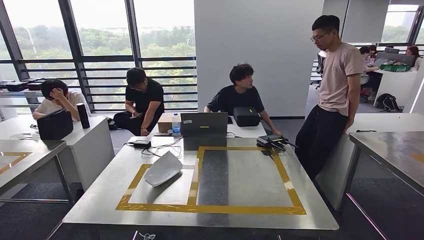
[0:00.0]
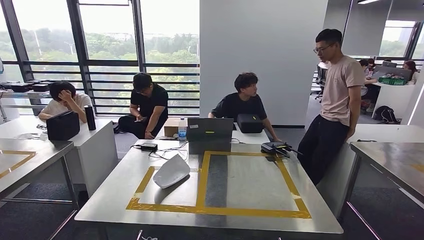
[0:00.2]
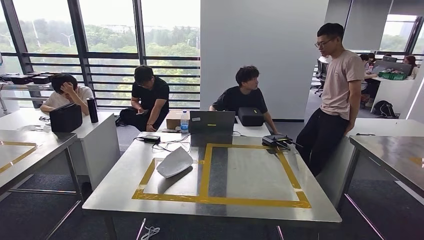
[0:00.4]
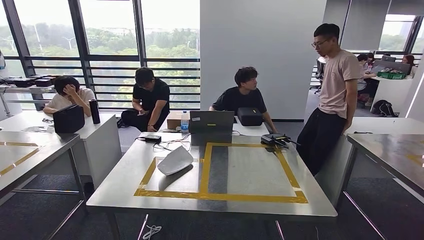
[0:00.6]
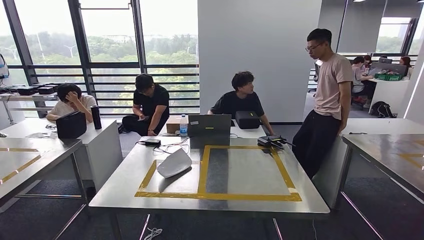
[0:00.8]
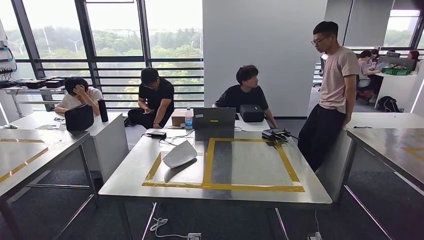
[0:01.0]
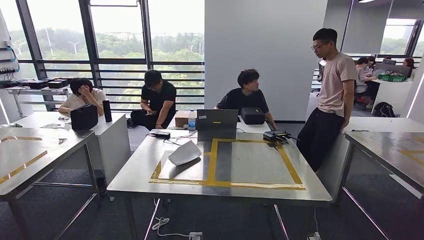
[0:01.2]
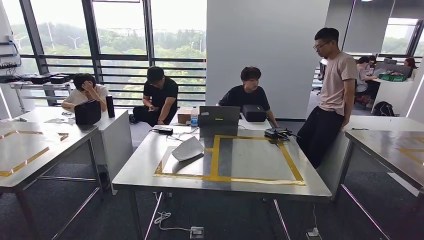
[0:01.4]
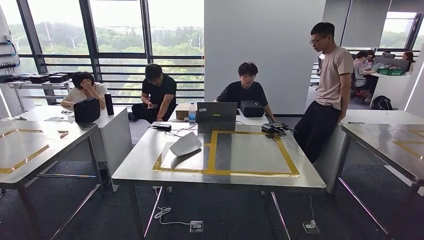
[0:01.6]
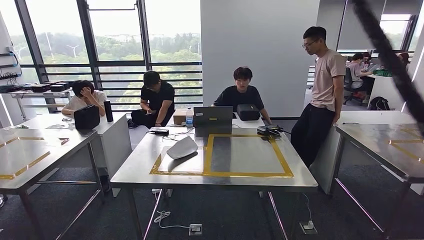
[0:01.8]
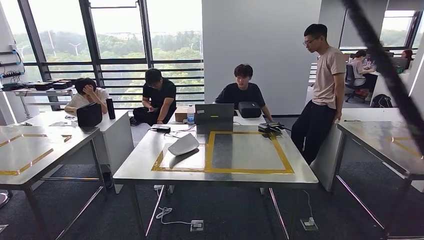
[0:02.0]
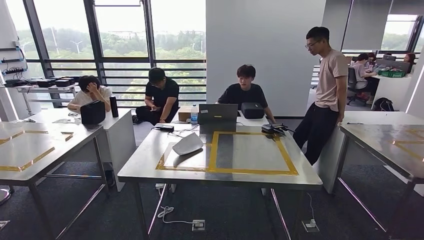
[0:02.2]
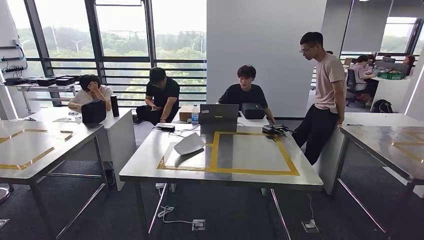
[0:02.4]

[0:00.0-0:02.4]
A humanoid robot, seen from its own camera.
Step, 0:00.0 to 0:02.2: Return to the initial position at the workbench.

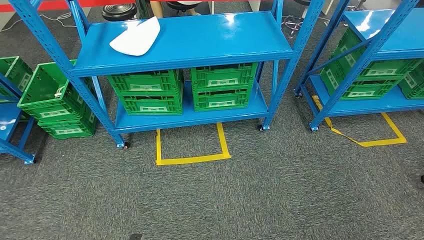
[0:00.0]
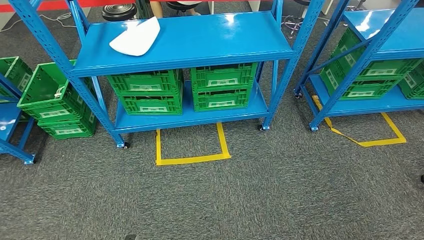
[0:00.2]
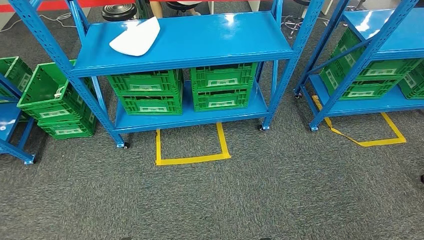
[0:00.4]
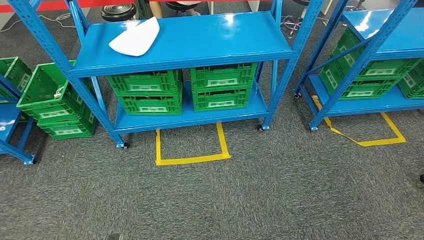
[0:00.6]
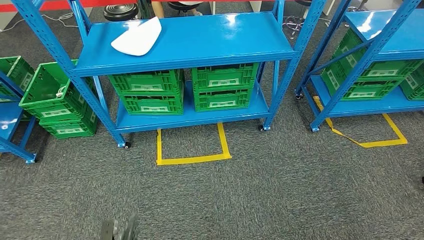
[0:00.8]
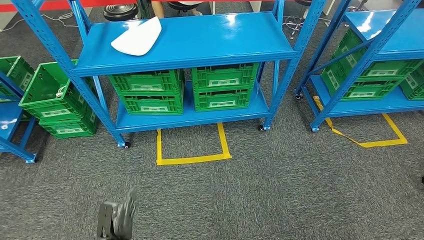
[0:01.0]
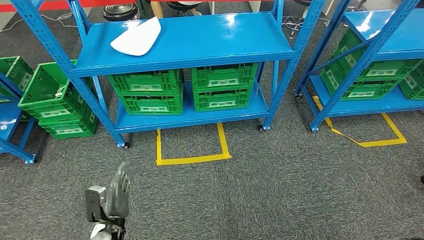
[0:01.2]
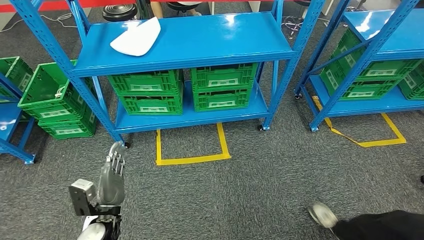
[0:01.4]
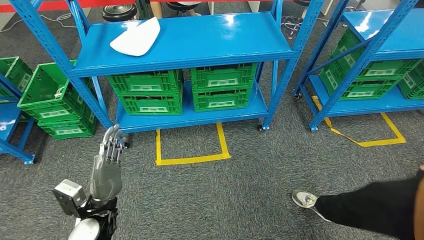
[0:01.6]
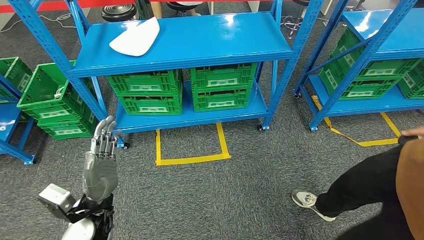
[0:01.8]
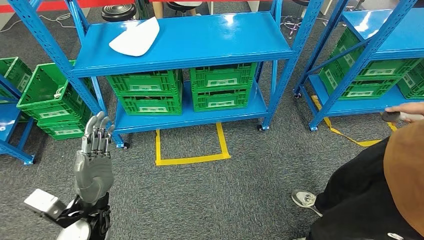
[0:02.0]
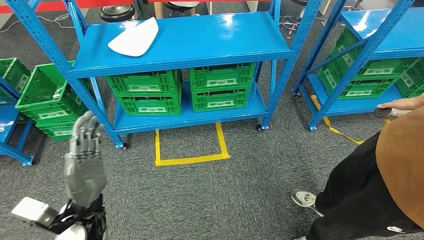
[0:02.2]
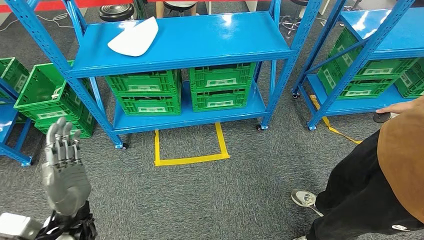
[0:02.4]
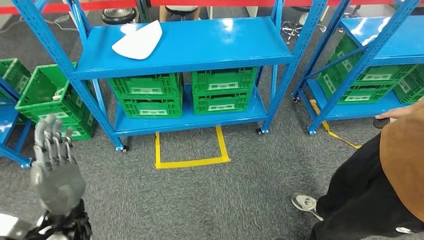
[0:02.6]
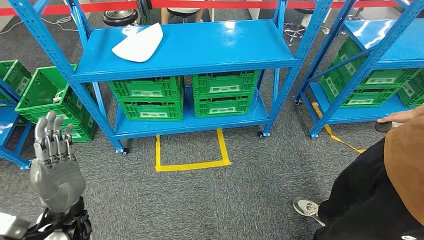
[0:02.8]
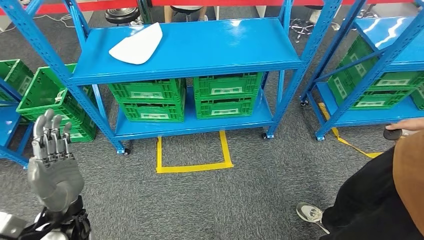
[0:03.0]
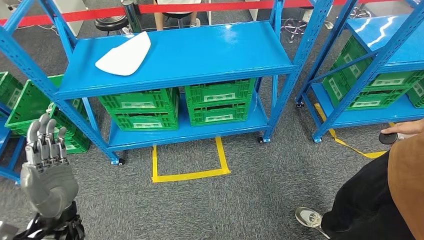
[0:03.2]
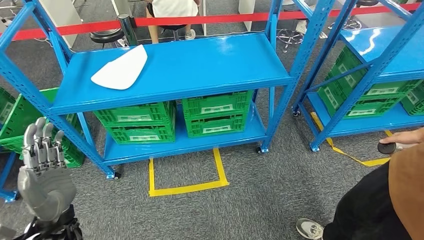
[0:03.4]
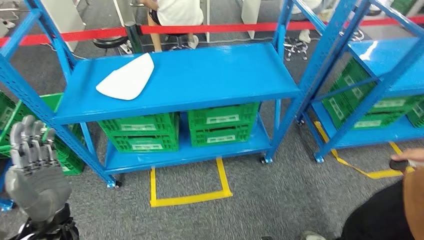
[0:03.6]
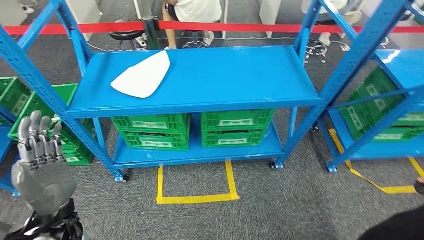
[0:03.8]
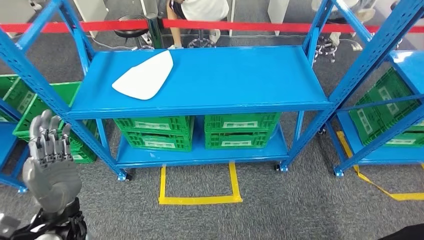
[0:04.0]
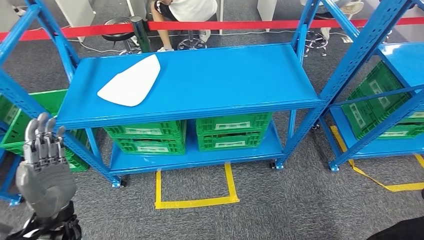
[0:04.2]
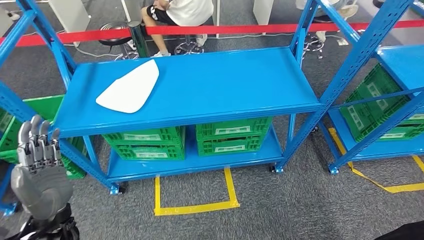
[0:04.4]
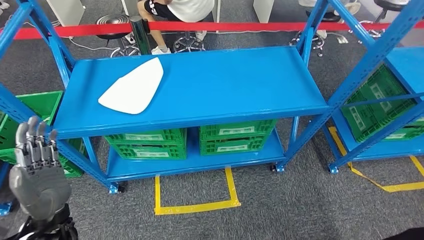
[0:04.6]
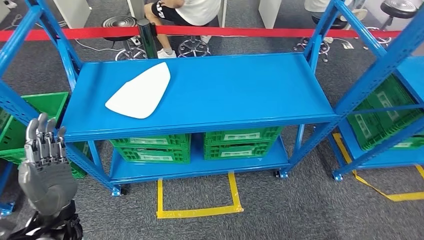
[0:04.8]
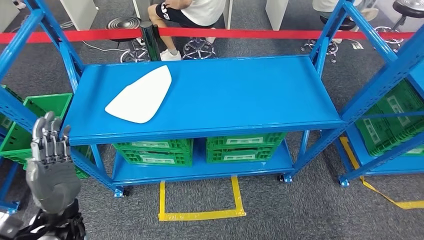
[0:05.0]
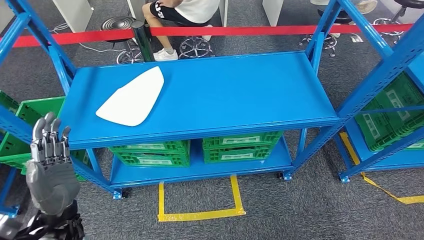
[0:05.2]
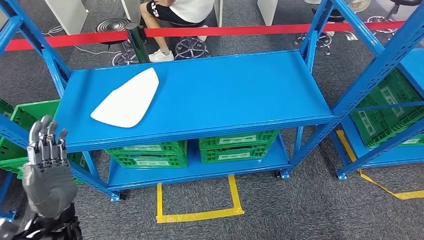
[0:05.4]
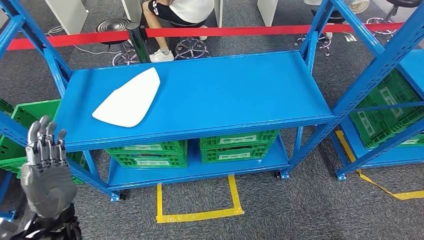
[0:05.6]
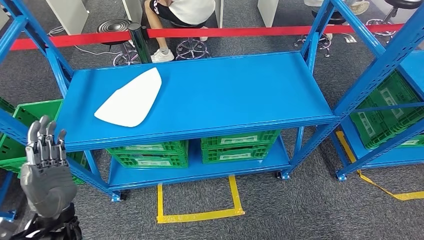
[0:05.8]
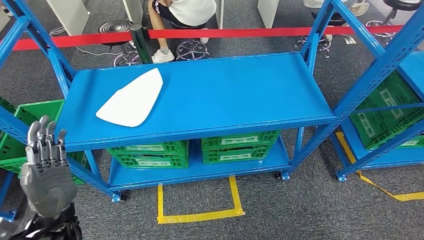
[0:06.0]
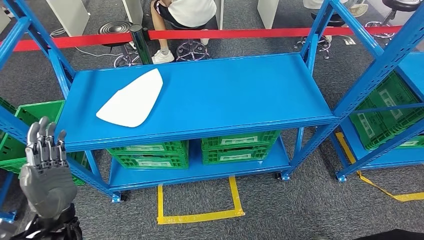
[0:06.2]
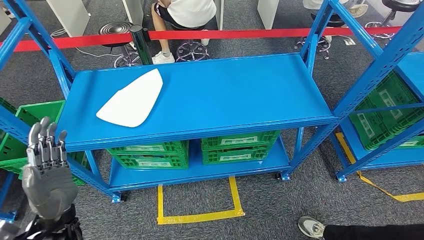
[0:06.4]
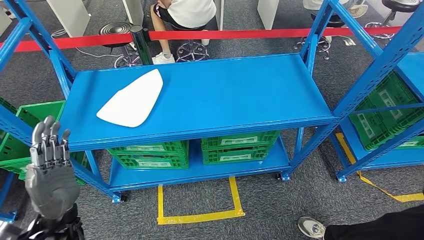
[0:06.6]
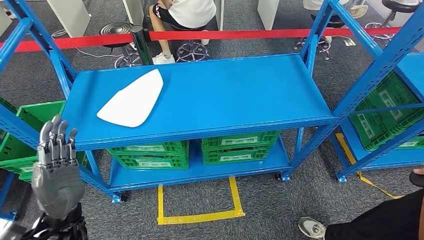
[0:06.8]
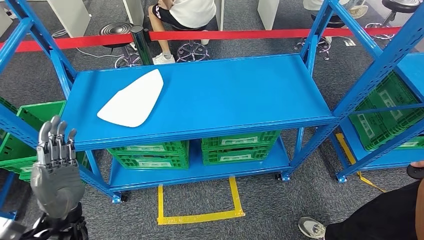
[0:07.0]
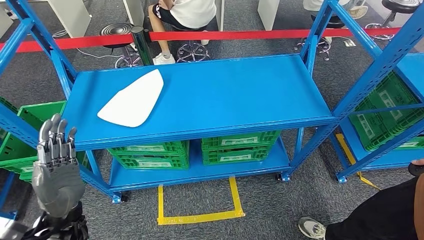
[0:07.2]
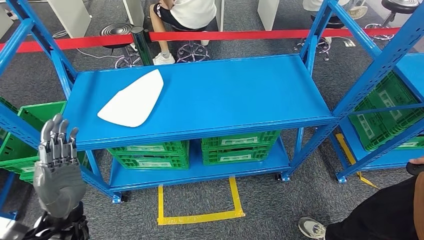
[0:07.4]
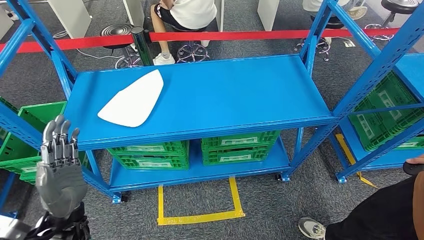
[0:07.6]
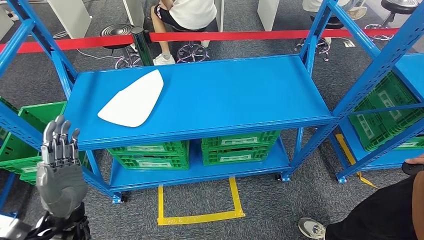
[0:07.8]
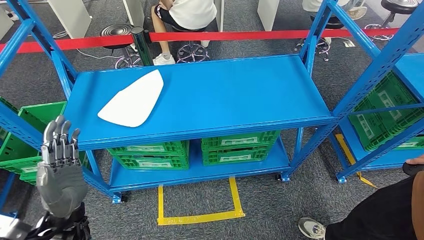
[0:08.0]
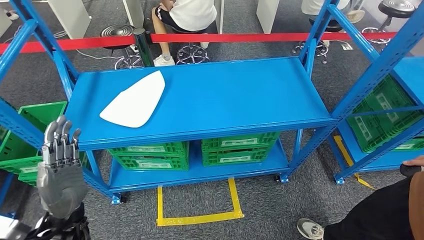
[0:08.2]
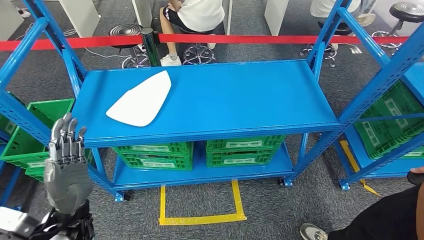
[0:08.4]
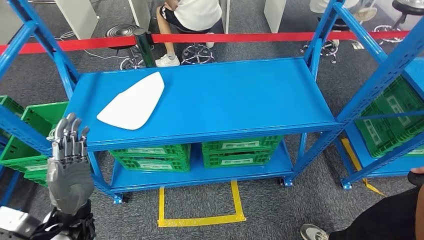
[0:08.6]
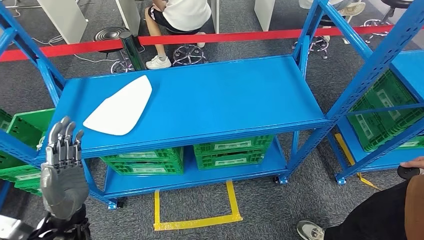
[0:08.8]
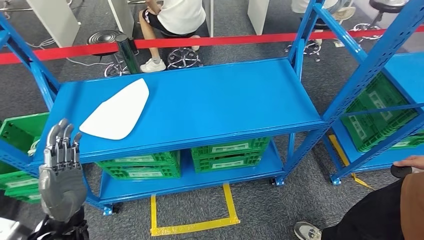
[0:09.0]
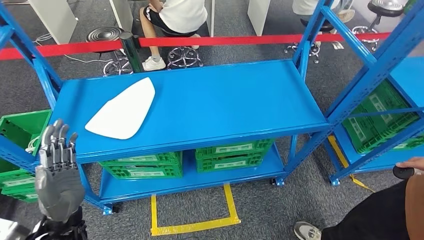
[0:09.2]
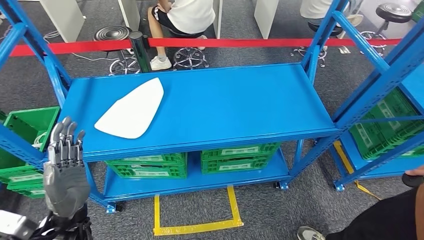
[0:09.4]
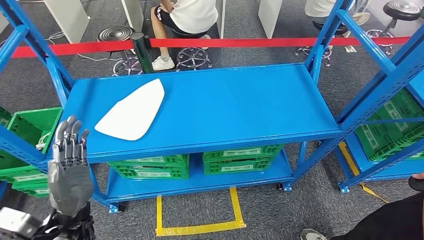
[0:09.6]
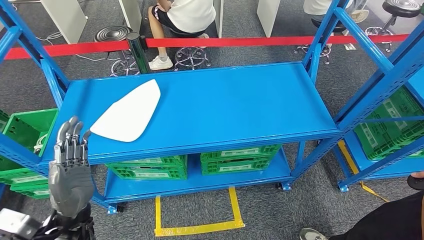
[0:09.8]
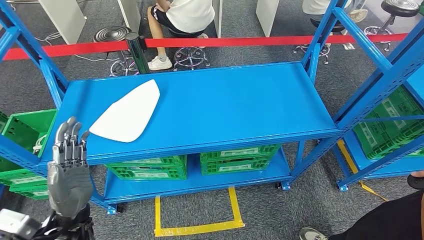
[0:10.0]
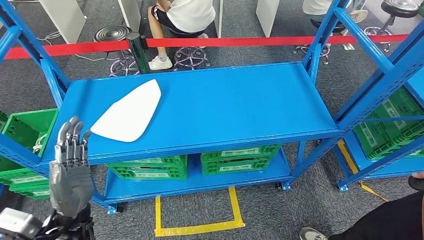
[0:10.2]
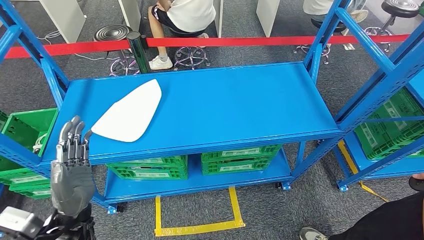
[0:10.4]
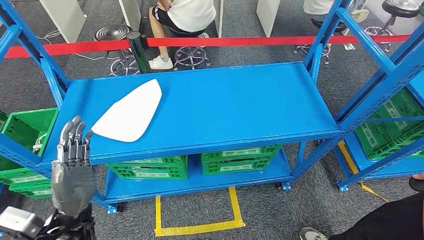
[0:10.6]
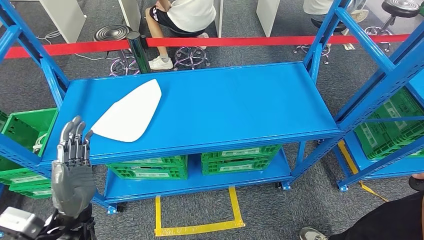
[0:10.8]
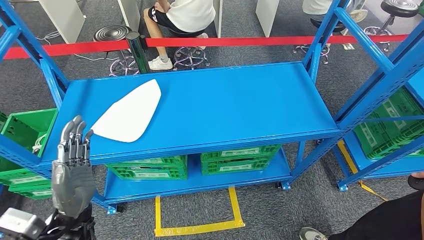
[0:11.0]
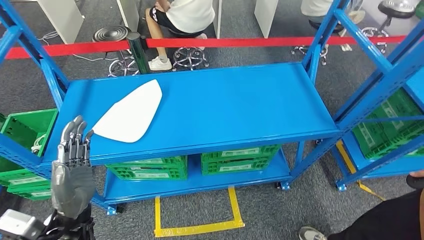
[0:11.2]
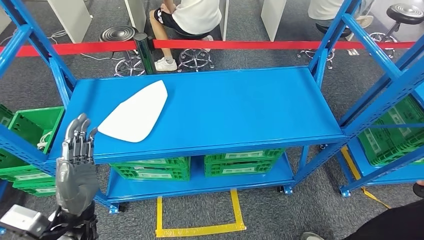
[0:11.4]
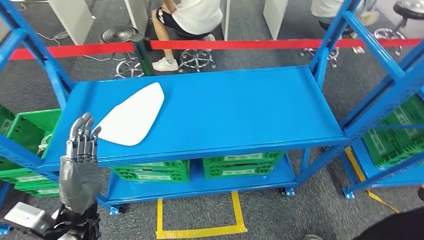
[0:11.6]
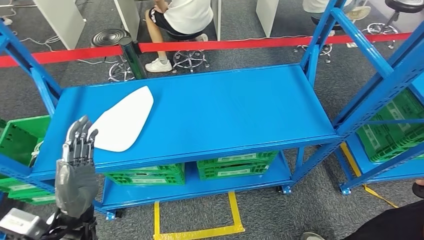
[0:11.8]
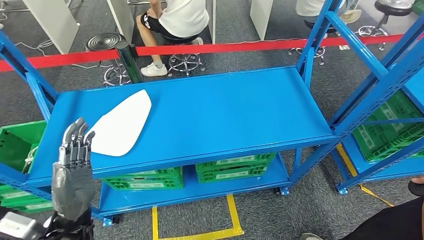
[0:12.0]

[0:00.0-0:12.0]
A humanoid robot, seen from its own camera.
0:06.0 to 0:07.6: The hands move only a little.

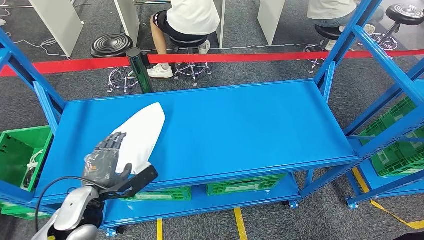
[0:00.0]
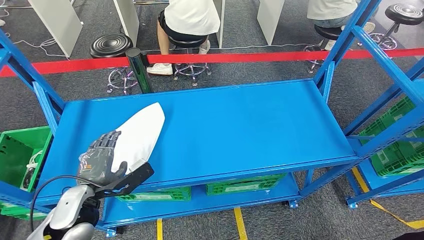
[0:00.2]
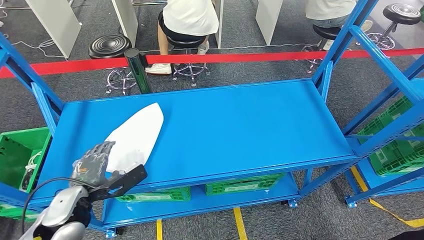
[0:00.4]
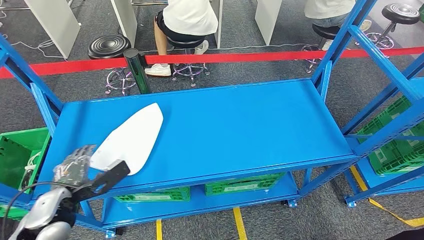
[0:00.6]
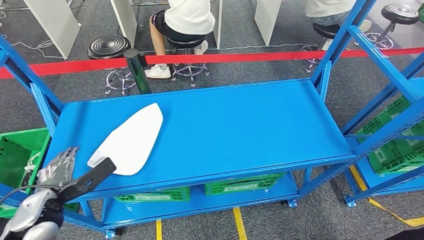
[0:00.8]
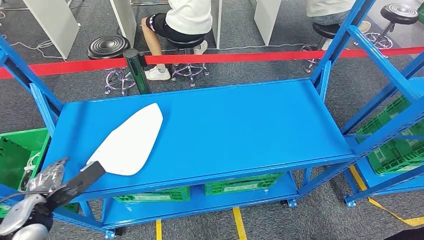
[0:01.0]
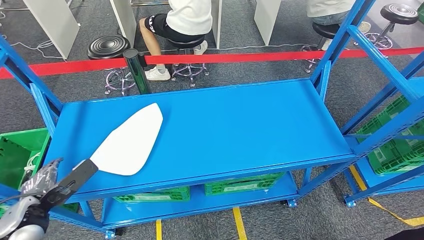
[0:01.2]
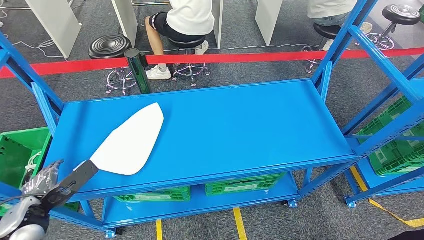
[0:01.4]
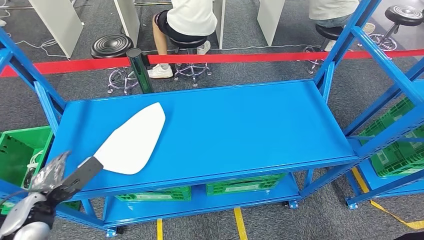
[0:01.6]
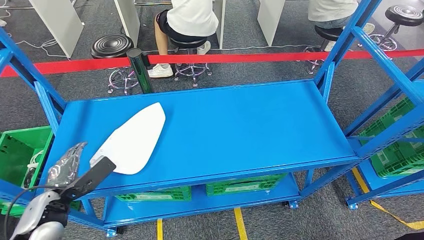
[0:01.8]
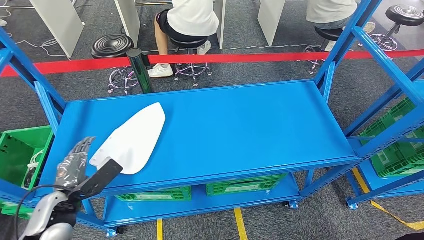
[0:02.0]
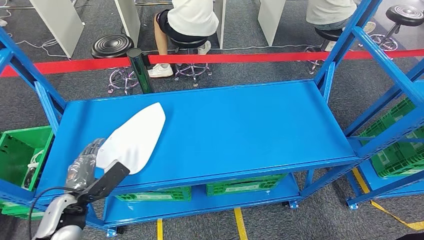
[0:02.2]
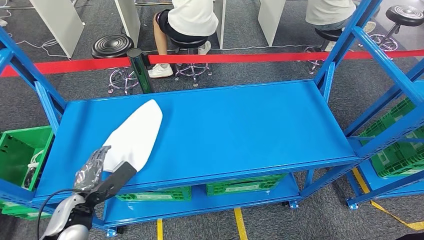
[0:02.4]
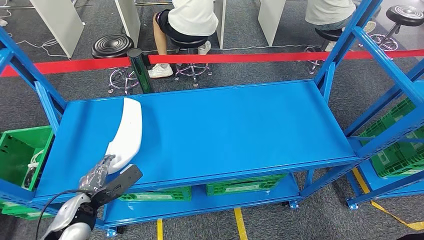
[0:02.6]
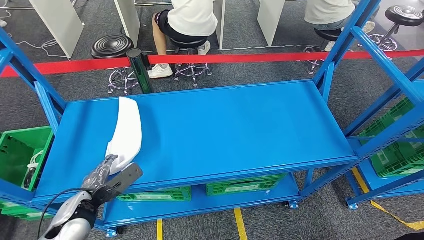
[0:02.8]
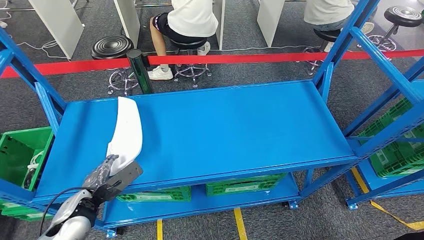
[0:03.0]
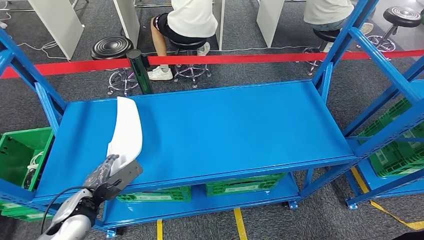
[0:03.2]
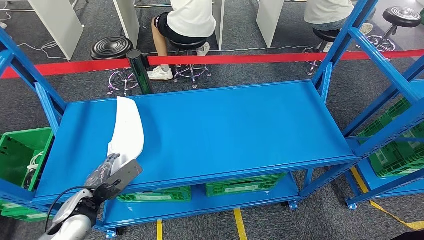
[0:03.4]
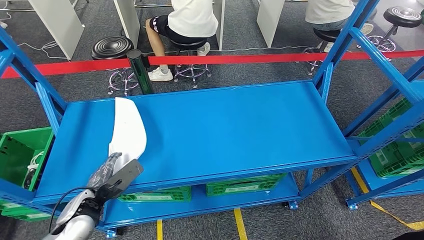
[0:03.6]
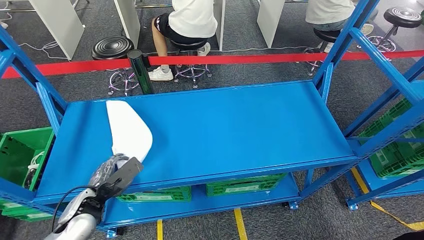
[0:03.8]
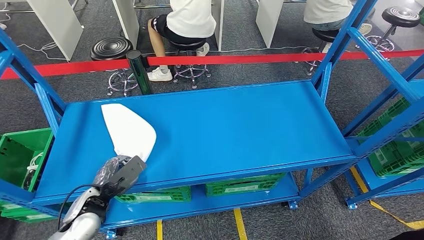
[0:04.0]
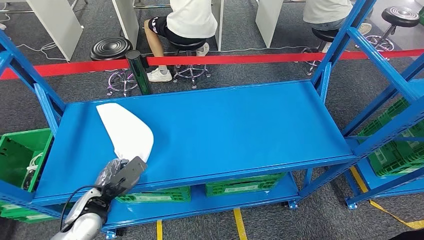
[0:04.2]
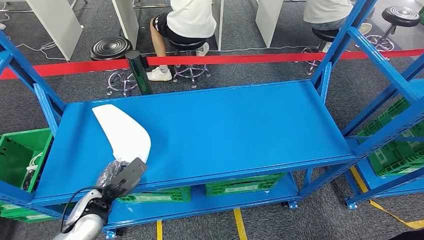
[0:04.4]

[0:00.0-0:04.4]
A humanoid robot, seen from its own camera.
0:00.0 to 0:01.4: The left hand goes roughly 15 cm to the left.
0:03.0 to 0:04.4: There are only small adjustments of the hands.
